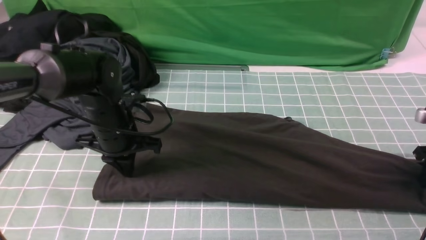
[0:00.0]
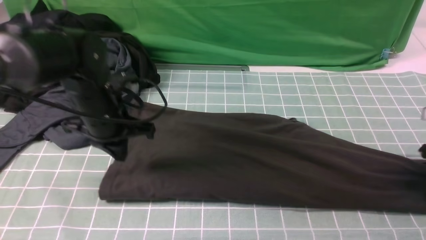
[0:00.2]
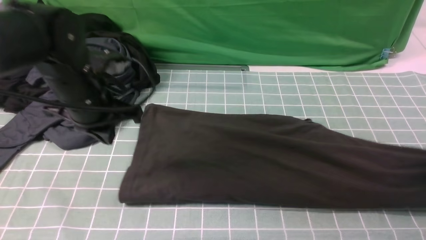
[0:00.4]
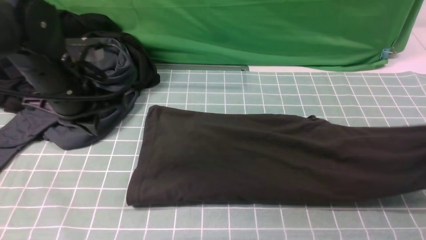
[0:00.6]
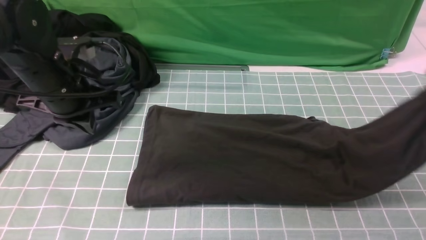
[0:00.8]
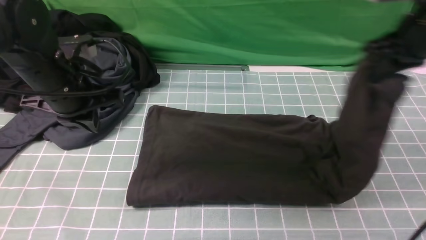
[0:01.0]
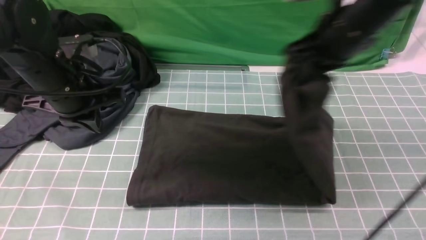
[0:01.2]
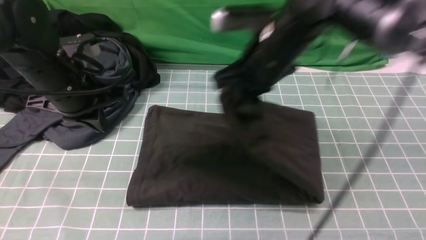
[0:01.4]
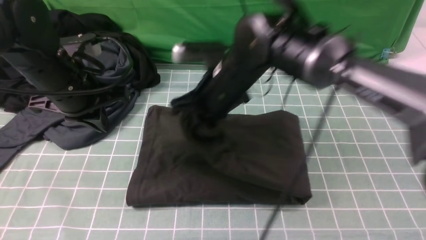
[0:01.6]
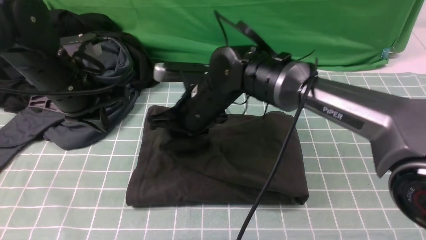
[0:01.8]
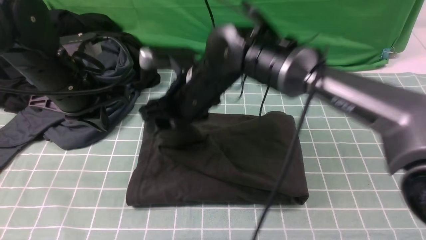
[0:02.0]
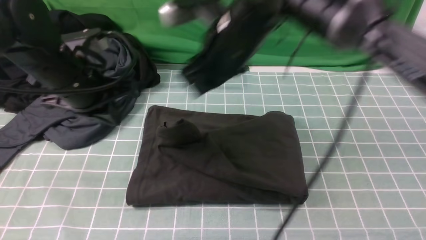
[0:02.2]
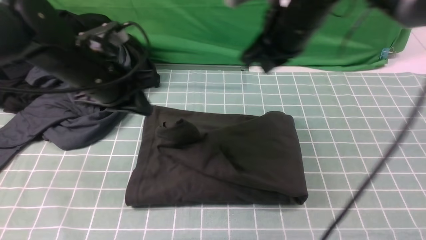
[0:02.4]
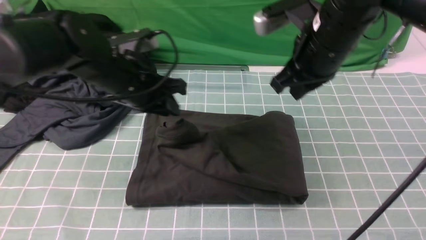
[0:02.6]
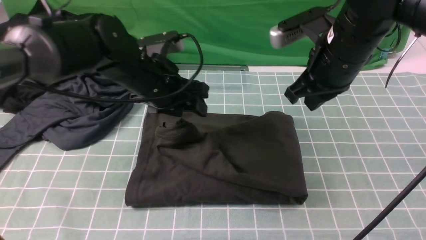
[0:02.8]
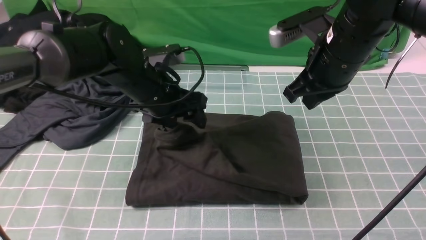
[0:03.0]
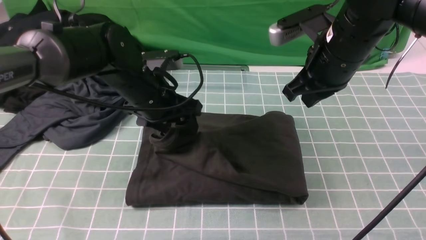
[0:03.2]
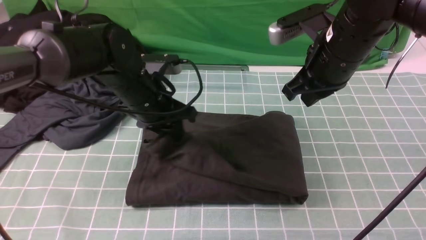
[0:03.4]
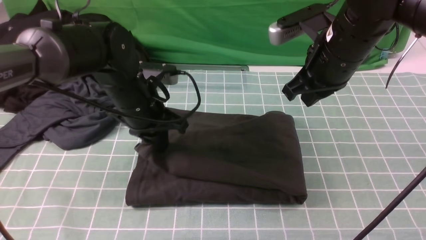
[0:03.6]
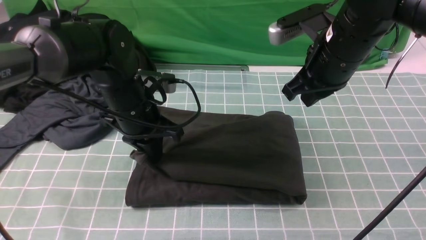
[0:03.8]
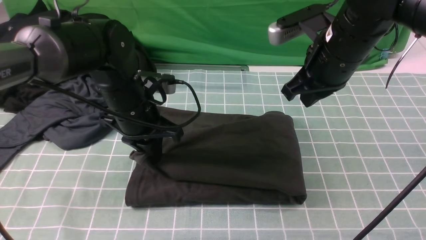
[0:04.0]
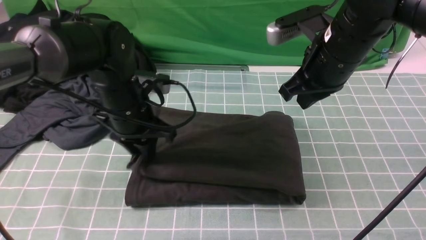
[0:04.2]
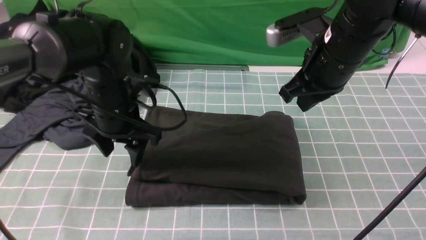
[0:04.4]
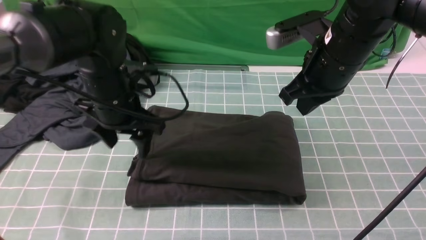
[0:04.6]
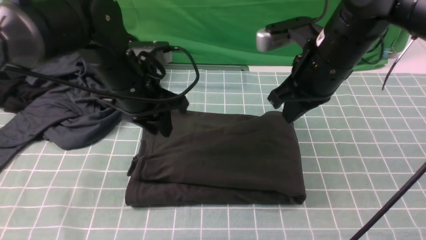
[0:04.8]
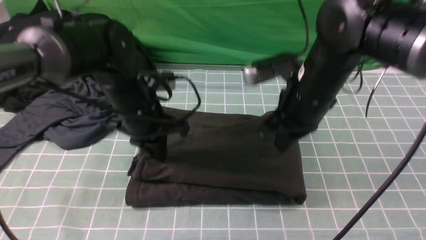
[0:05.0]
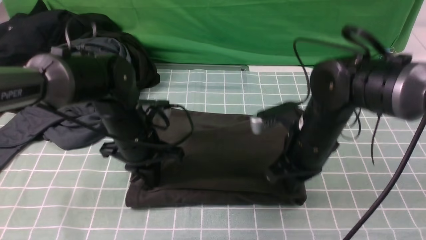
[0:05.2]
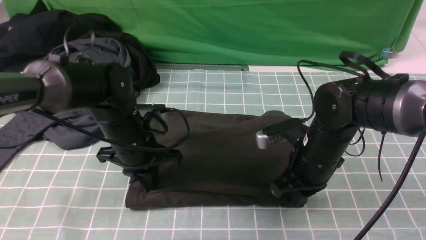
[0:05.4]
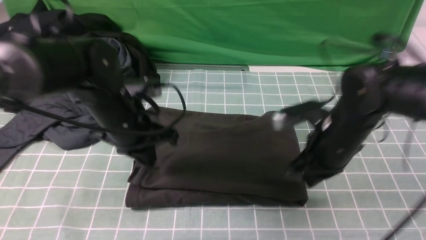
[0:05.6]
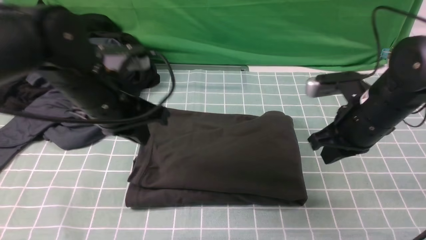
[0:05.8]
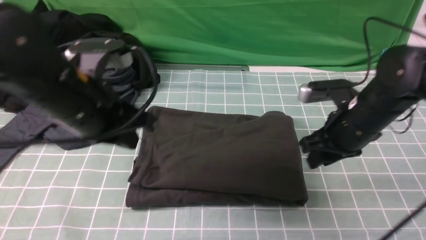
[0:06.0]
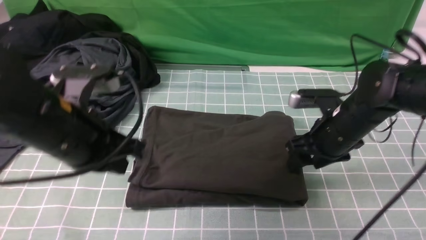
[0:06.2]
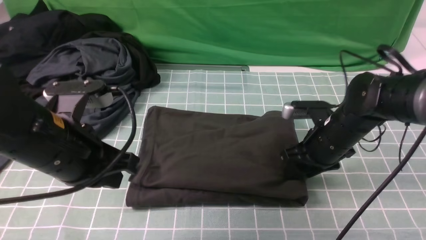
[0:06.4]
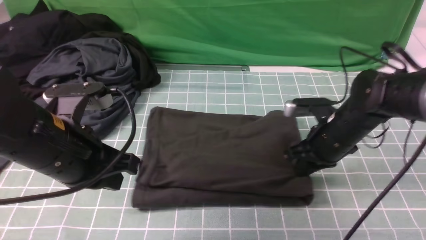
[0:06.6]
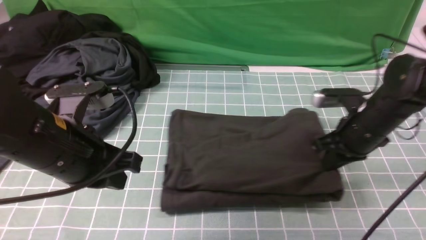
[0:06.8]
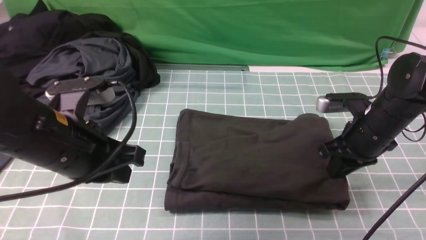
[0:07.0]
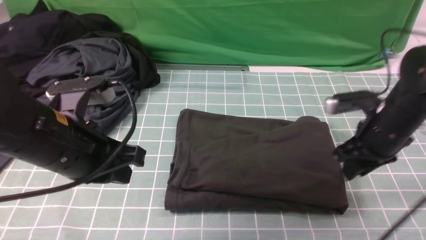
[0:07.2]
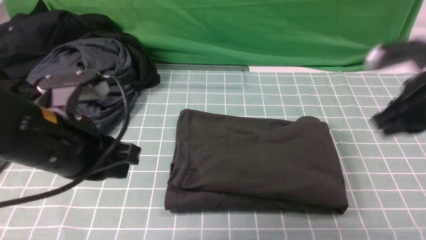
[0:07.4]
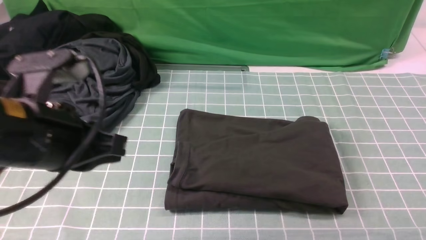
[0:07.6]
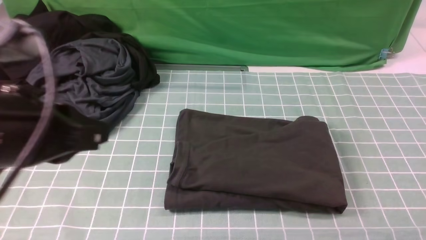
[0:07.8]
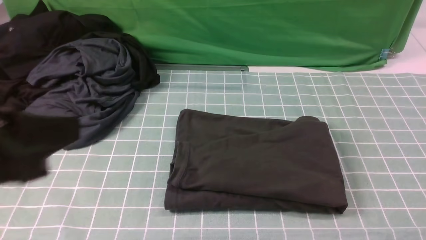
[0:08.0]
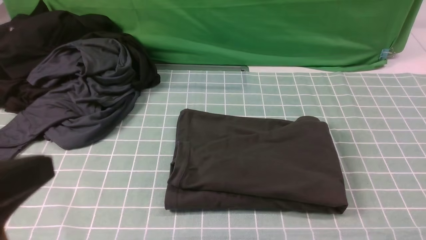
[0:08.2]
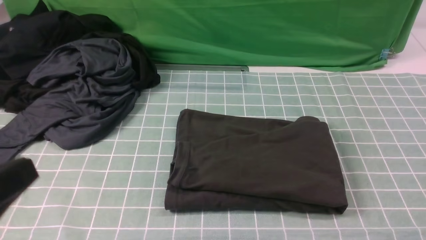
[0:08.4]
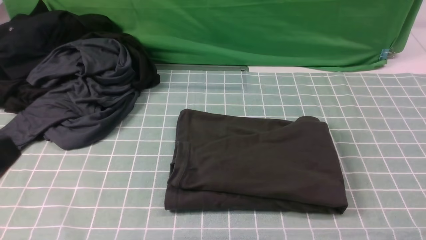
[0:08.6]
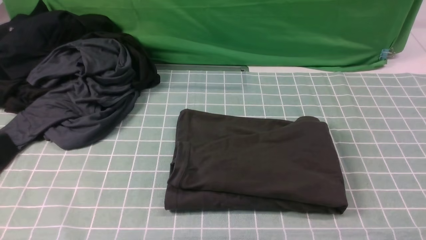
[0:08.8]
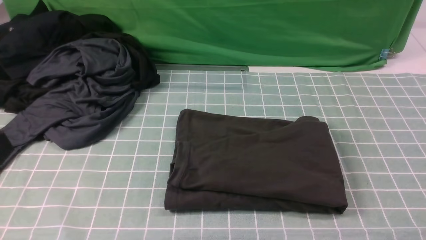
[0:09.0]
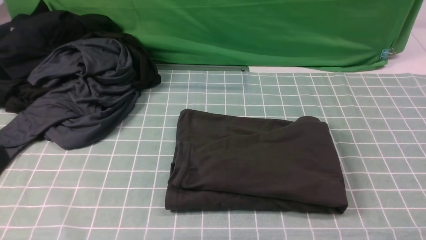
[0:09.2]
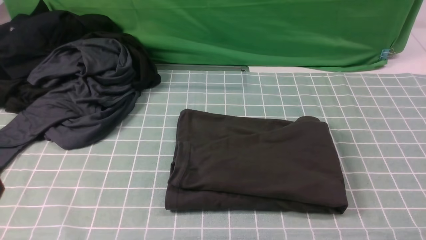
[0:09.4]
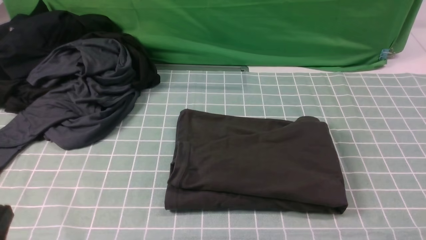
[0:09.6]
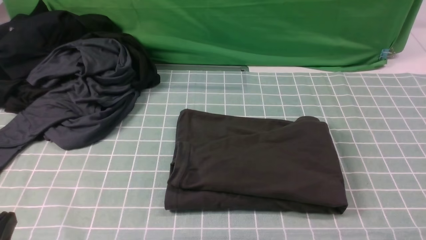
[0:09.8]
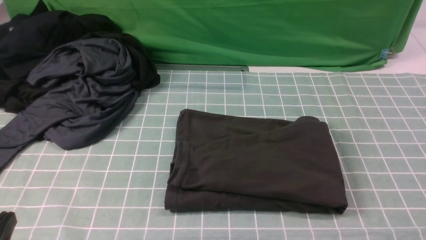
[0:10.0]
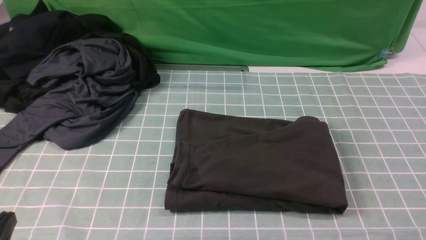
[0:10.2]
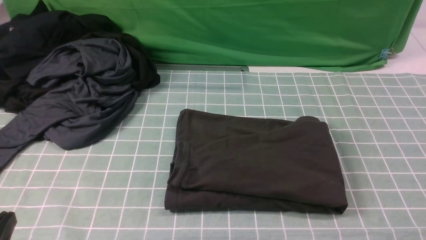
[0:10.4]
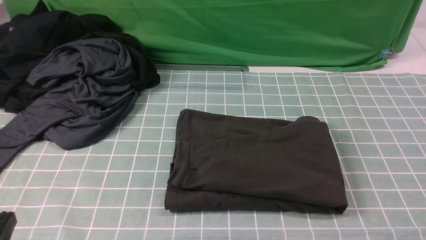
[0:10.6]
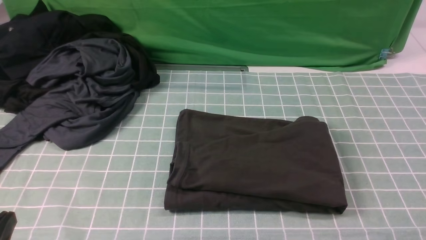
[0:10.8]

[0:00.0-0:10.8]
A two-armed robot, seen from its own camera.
Step, 0.6 to 2.0 s: use the right arm to drag the right edge of the fabric to the left and folds it over the left edge.
0.0 to 1.6 s: The left gripper is displaced upward by about 10 cm; the right gripper goes approximately 40 cm to the left.
1.6 to 3.0 s: The left gripper is displaced to the right by some 10 cm, and opens its fingers, while the right gripper shifts roughly 15 cm to the right and upward, and opens, then closes again.
3.0 to 4.6 s: The left gripper closes, then opens again.
4.6 to 6.2 s: The right gripper moves downward, about 15 cm, and opens up. Meanwhile the left gripper goes some 10 cm backward, and closes up.
6.2 to 7.8 s: The right gripper travels backward, upward and to the right by about 40 cm, and closes. The left gripper travels backward and upward by about 10 cm.
7.8 to 9.2 s: The left gripper goes about 15 cm backward, downward and to the left. The right gripper is displaced downward and backward by approximately 10 cm.
9.2 to 10.8 s: The left gripper moves downward, approximately 10 cm.

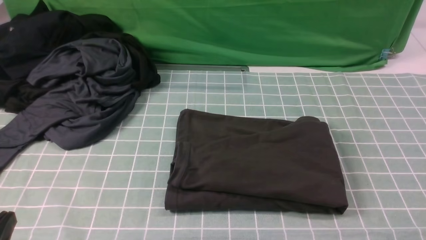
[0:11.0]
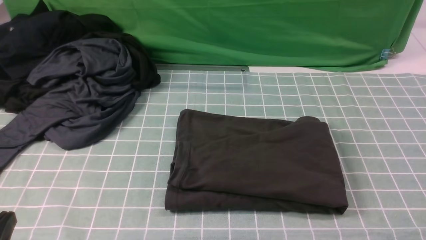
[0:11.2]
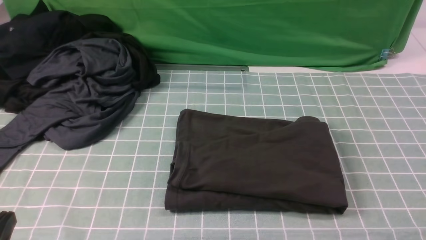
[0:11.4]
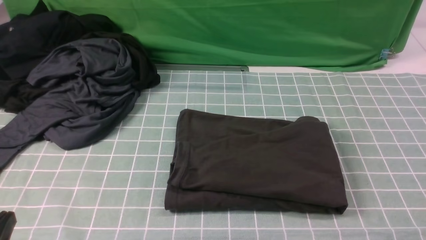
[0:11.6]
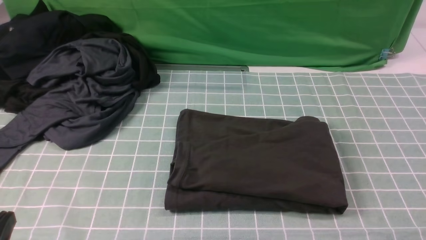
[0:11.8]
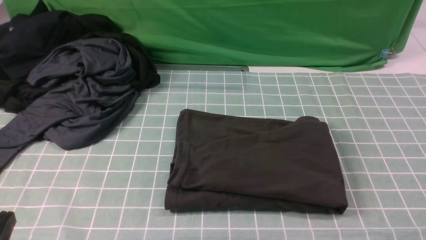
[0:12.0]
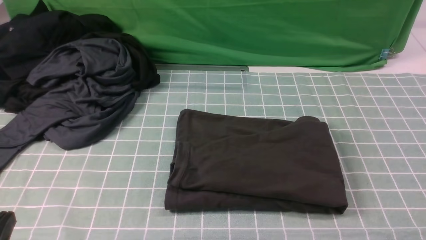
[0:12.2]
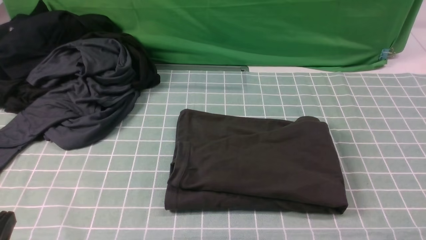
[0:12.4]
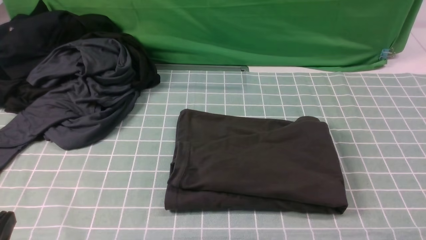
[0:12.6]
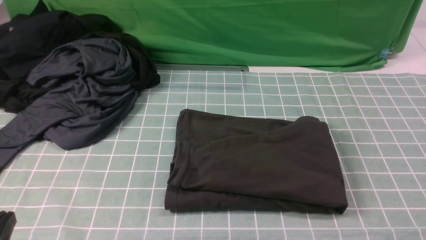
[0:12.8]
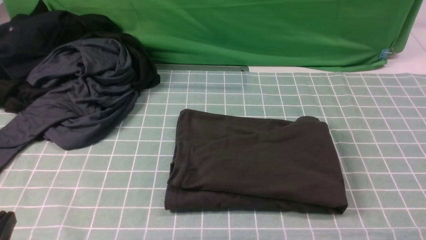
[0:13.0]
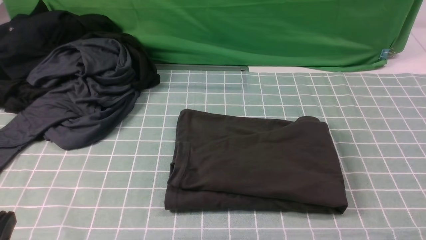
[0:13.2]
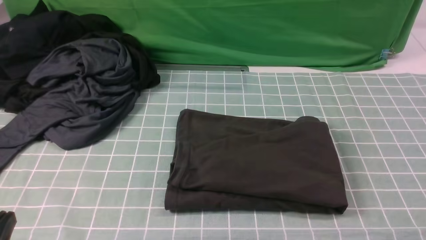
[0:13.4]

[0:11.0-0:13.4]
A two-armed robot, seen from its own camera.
12.2 to 13.4 s: Both grippers stay about where they are.

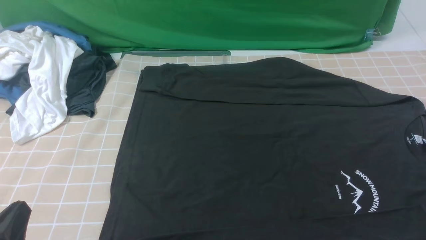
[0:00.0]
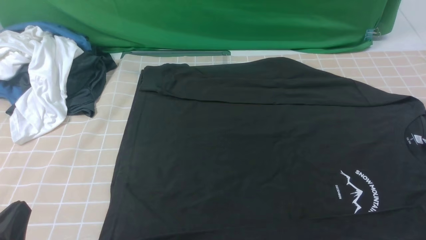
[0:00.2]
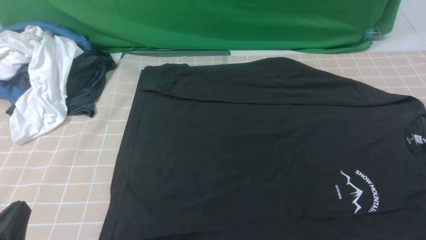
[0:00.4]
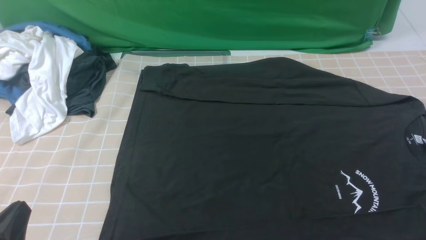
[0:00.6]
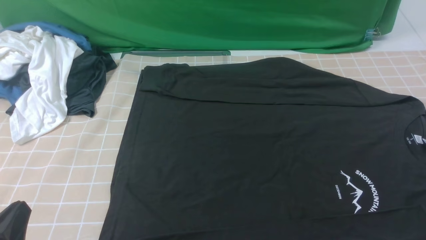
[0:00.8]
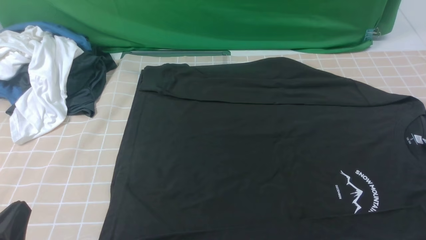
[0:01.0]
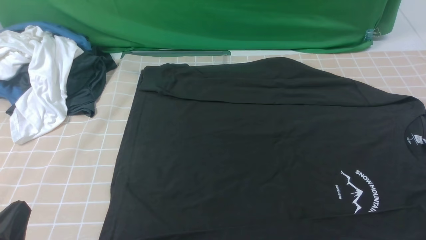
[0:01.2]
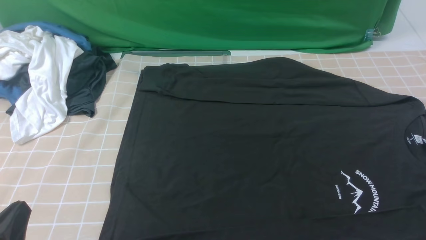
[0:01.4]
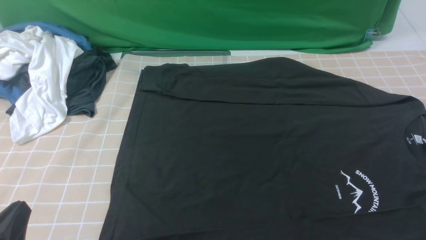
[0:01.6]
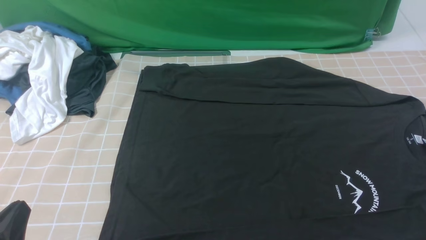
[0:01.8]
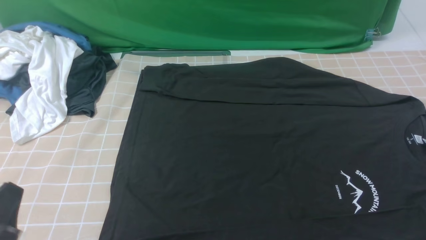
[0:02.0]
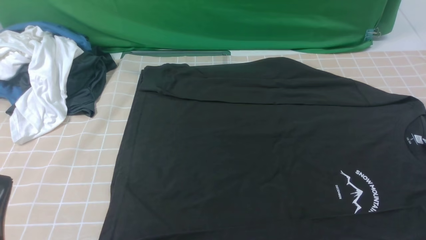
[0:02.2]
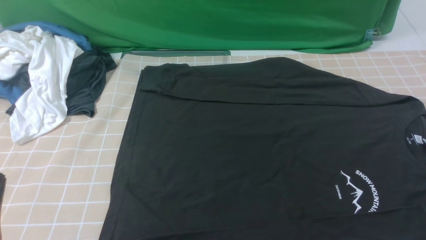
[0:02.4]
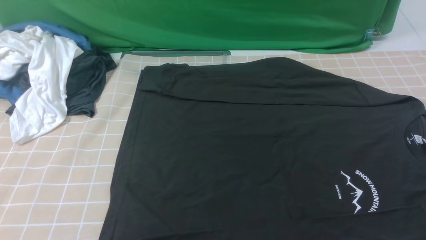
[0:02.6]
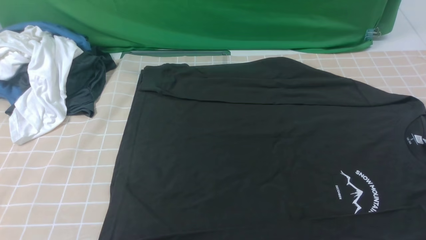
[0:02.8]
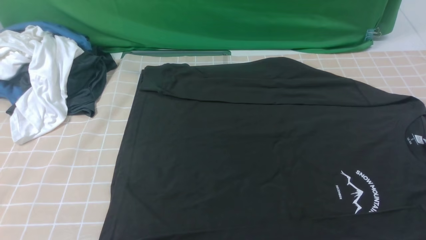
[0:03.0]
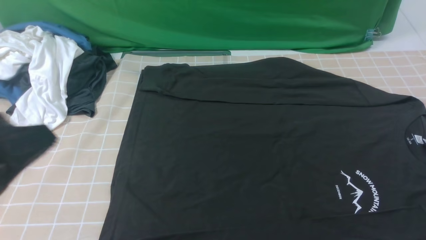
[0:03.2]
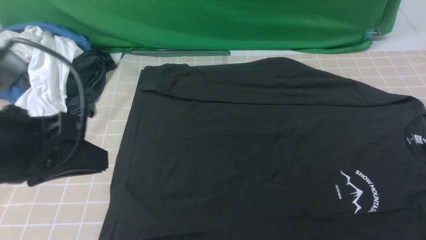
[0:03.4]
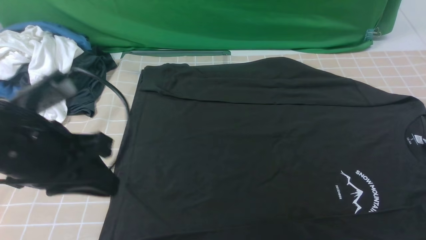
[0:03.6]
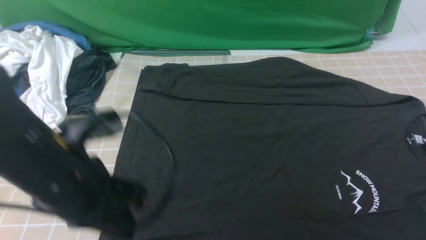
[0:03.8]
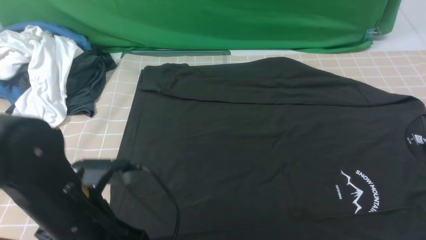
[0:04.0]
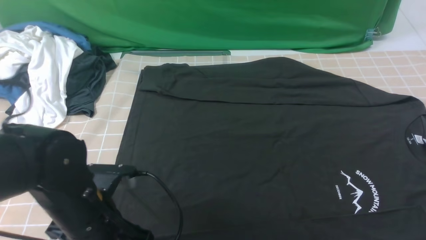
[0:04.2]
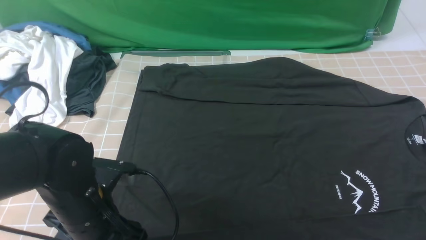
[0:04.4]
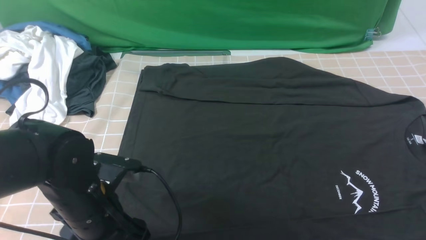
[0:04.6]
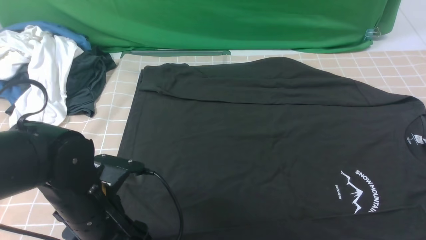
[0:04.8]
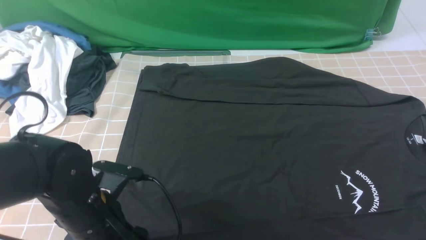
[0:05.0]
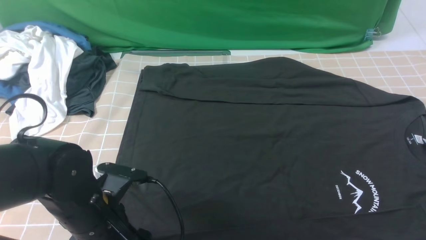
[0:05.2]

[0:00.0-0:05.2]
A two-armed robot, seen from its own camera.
1.8 to 3.4 s: The left gripper goes some 15 cm upward and forward.
3.4 to 5.2 s: The right gripper changes place by approximately 5 cm; the left gripper is displaced downward by some 15 cm, and opens its fingers.
